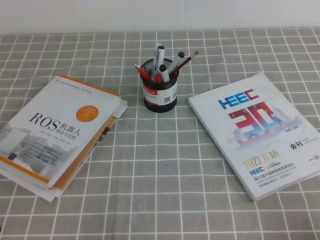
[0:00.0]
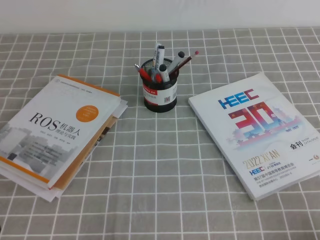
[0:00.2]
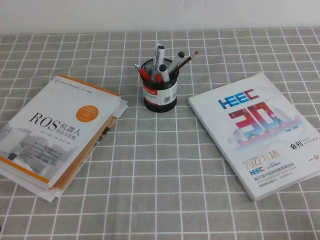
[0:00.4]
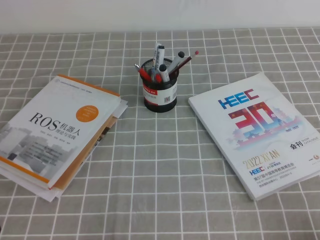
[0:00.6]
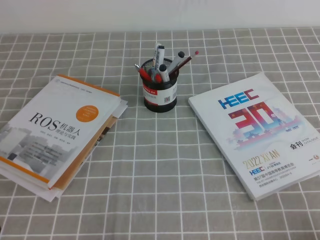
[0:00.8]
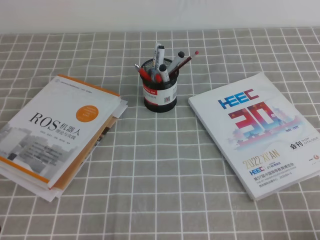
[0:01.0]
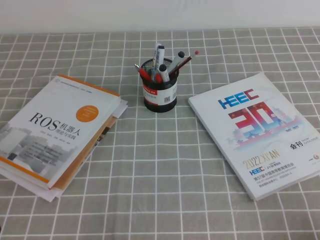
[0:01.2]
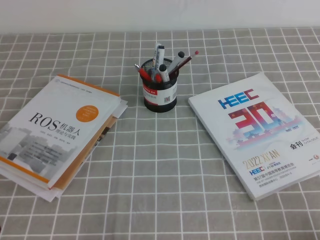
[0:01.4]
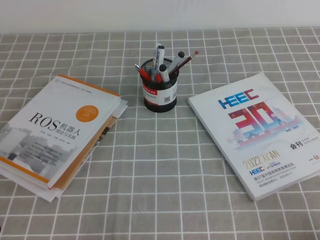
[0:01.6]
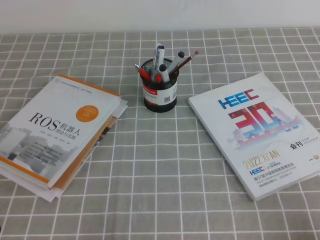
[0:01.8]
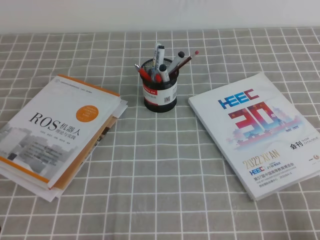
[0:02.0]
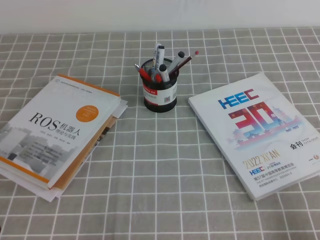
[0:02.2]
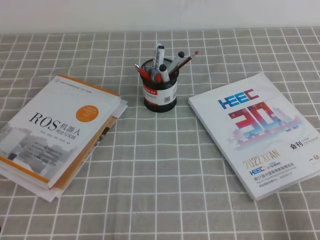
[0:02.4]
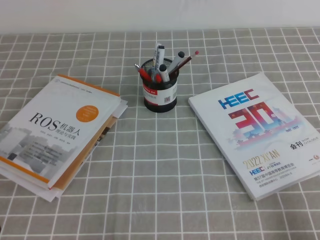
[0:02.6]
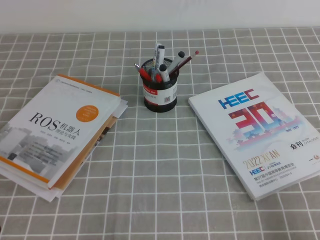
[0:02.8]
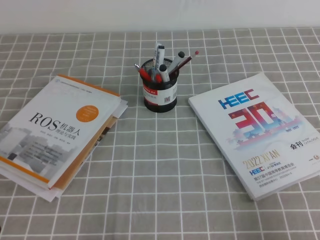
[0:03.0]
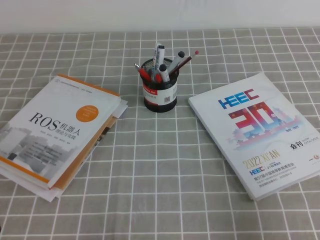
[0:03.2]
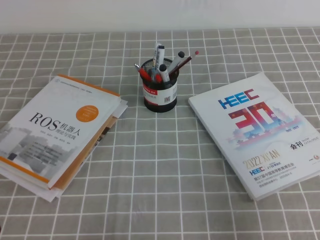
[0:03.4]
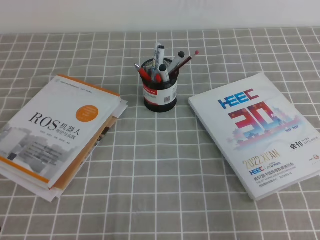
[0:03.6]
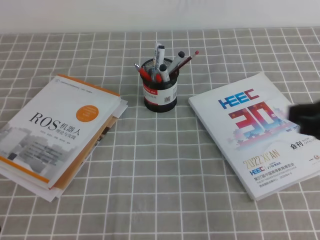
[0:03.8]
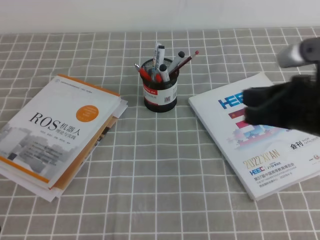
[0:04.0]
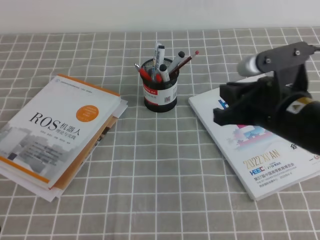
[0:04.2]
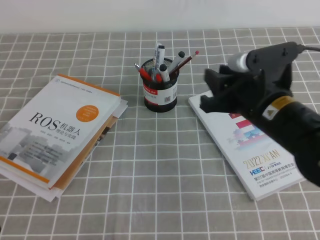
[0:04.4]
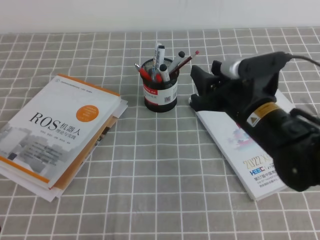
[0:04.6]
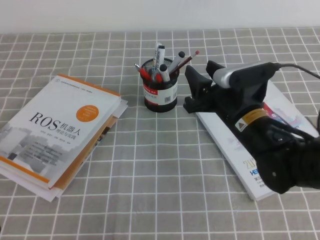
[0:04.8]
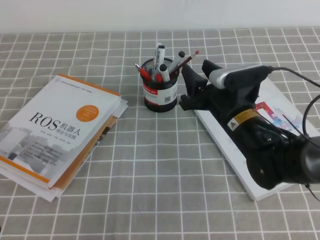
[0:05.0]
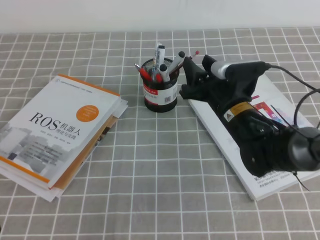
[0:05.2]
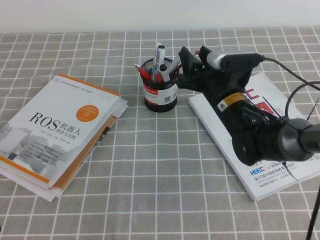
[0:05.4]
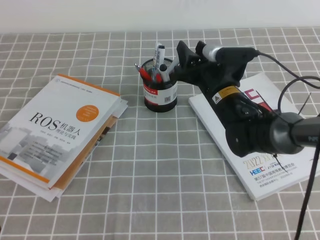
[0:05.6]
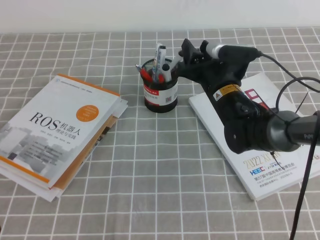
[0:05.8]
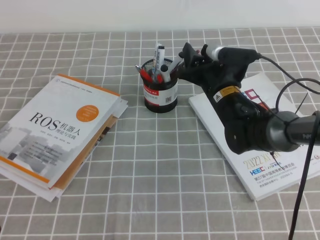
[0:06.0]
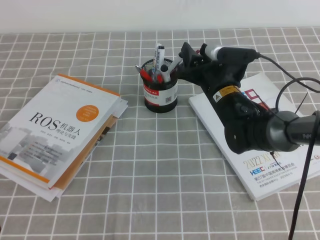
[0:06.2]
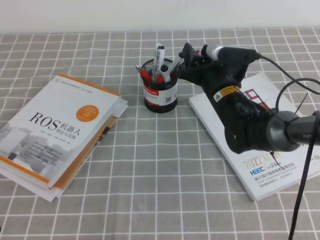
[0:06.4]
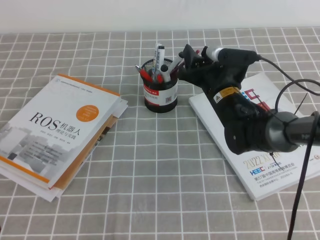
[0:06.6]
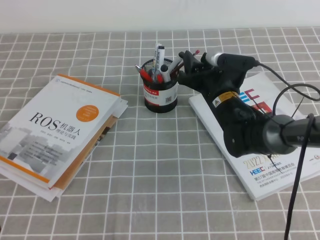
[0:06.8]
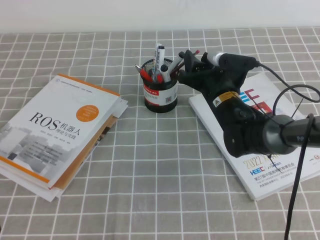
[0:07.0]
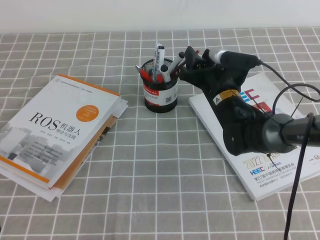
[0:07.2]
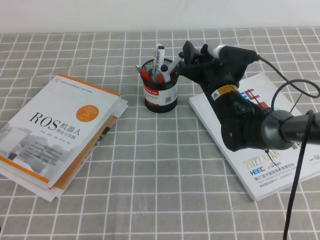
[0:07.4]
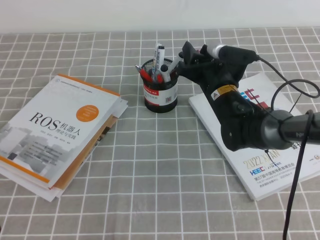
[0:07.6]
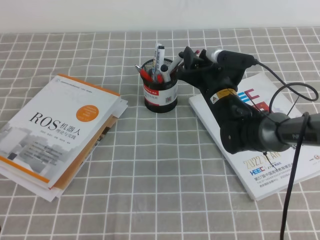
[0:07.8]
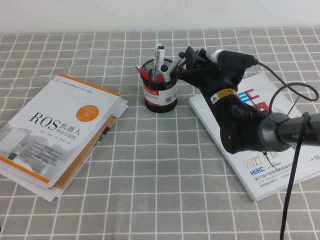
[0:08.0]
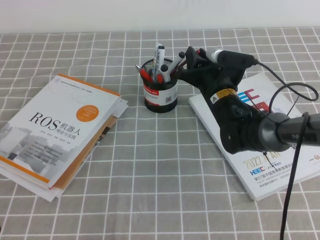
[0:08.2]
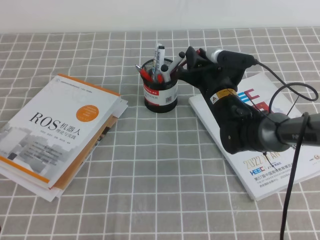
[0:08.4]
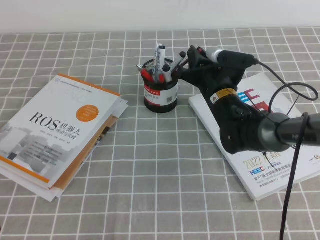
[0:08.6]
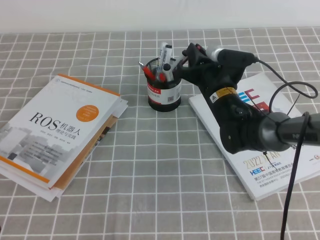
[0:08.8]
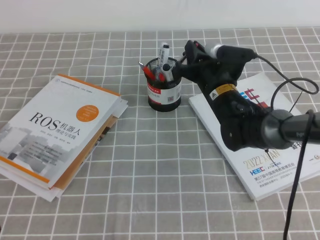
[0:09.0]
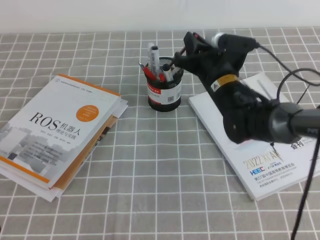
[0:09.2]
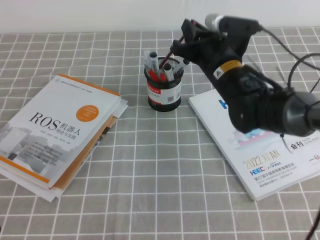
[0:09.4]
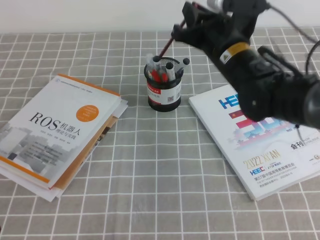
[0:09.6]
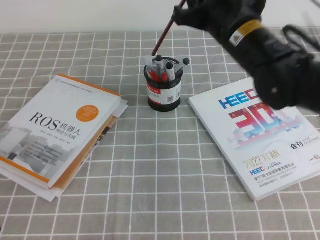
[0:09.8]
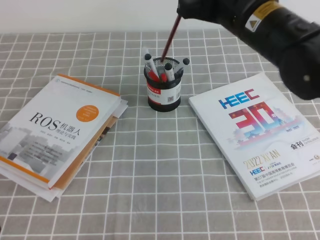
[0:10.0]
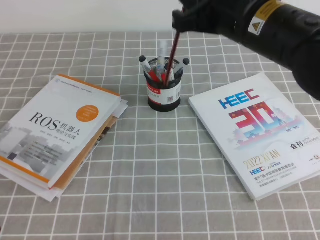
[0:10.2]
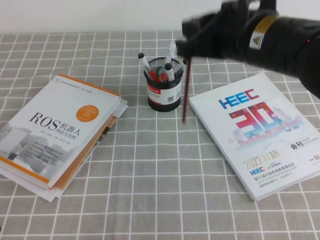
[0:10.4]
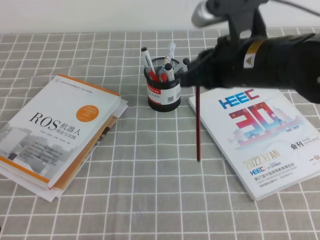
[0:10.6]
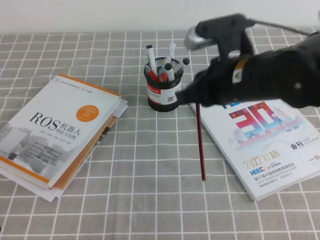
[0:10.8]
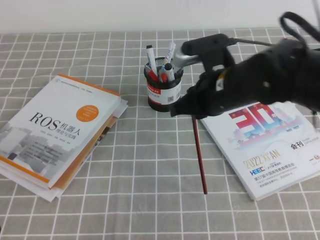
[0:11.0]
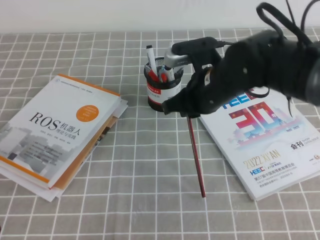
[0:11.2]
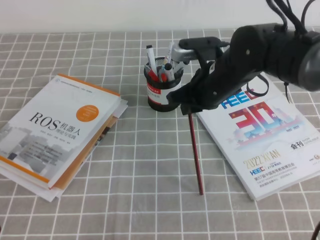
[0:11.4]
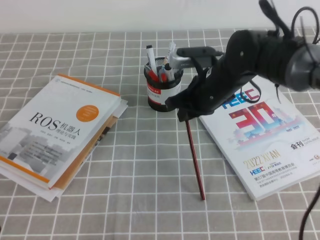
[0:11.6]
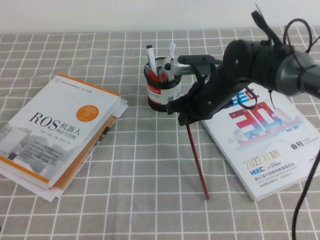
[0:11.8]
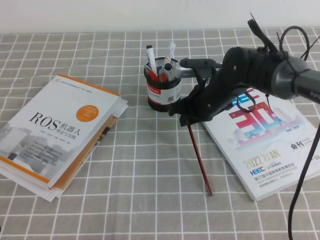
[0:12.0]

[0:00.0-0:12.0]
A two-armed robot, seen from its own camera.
0:00.0 to 0:01.6: The two grippers keep their place.
0:01.6 to 0:03.0: The right gripper is displaced upward by roughly 10 cm.
0:03.0 to 0:04.4: The right gripper goes about 25 cm forward and to the left, and opens its fingers.
0:04.4 to 0:06.0: The right gripper is displaced forward, downward and to the left by approximately 15 cm, and opens its fingers.
0:06.0 to 0:07.6: The grippers make only small movements.
0:07.6 to 0:09.0: The right gripper closes its fingers.
0:09.0 to 0:10.4: The right gripper moves upward and backward, roughly 20 cm.
0:10.4 to 0:12.0: The right gripper shifts roughly 20 cm downward and forward.

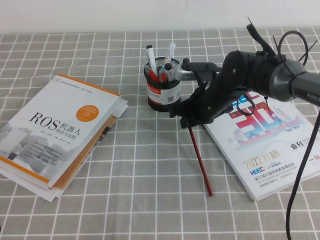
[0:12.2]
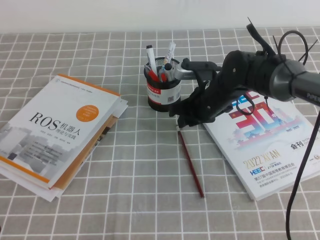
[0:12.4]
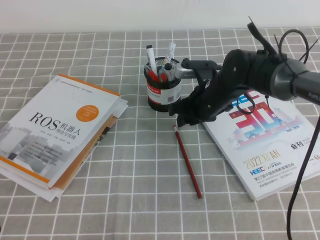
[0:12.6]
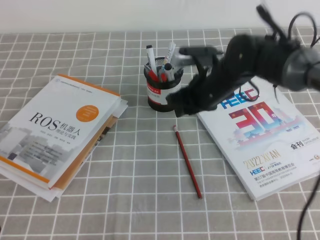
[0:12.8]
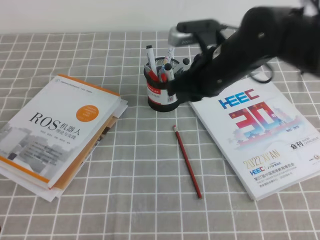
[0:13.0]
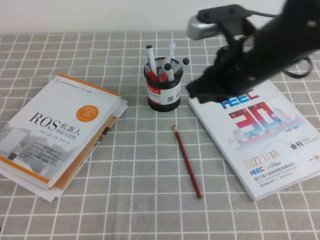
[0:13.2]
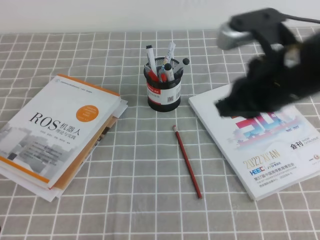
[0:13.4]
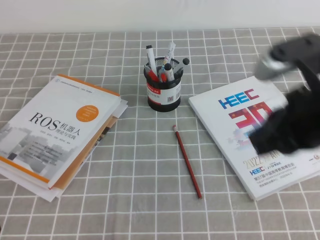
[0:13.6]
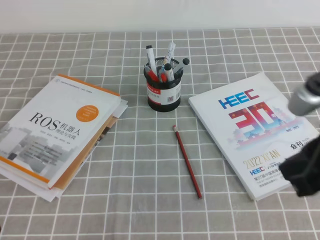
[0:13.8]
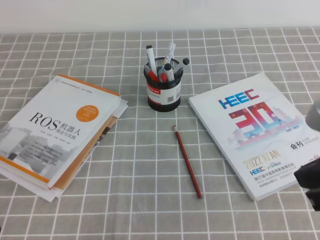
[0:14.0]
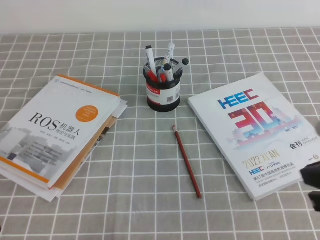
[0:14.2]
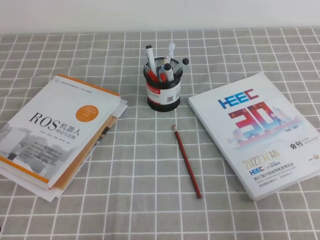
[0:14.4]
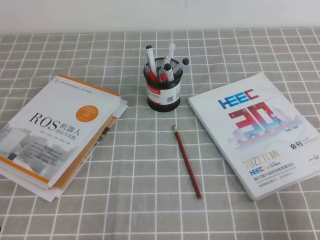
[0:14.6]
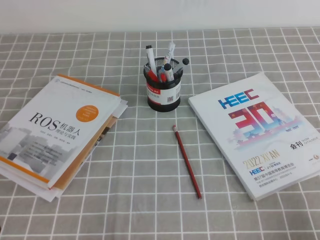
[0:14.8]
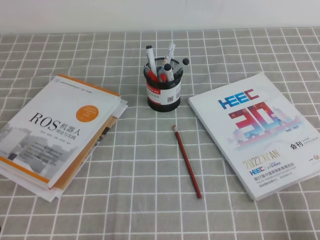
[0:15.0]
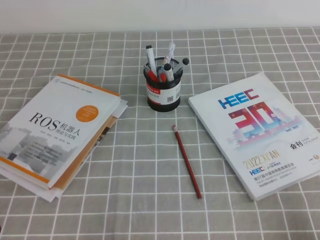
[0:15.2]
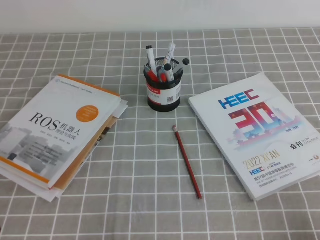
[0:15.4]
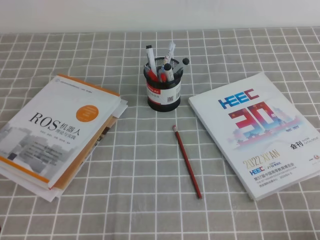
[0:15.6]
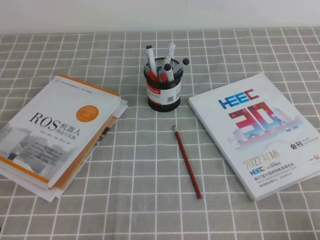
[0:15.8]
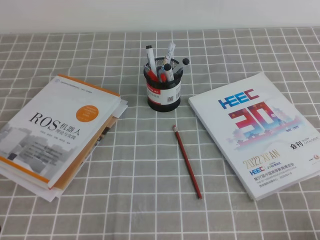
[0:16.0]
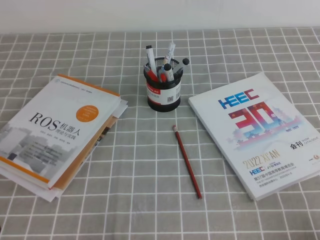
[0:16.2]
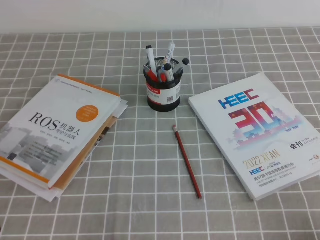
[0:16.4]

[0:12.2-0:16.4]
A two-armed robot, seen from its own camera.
Step, 0:12.2 to 0:16.4: Pick up the pen from the pen holder.
0:12.2 to 0:13.6: The right gripper goes roughly 30 cm backward, upward and to the right, and opens, then closes once more.
0:13.6 to 0:15.0: The right gripper goes some 25 cm downward, backward and to the right.

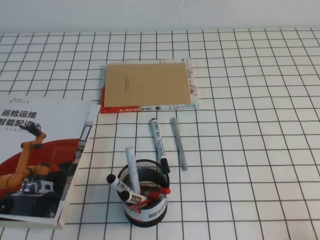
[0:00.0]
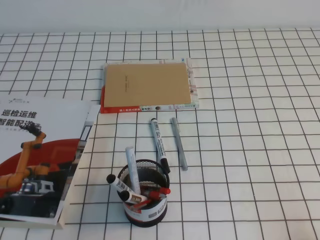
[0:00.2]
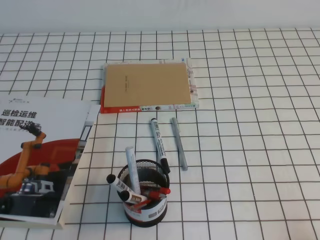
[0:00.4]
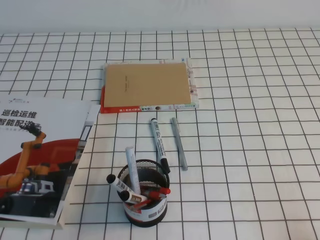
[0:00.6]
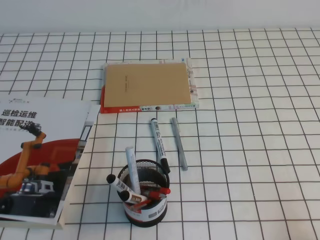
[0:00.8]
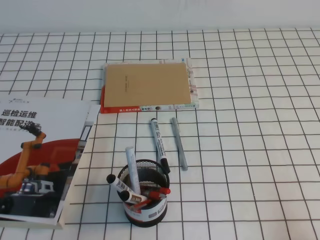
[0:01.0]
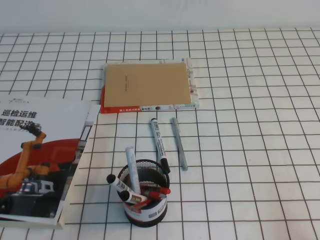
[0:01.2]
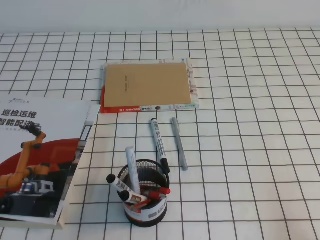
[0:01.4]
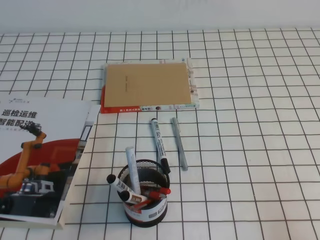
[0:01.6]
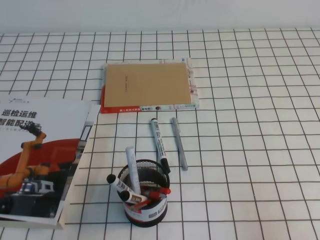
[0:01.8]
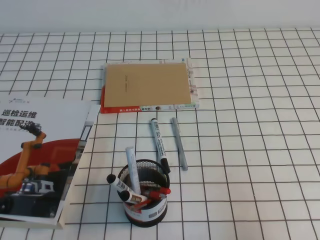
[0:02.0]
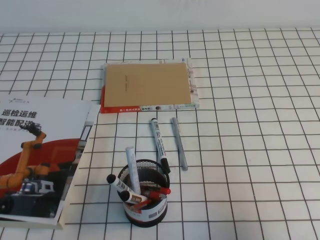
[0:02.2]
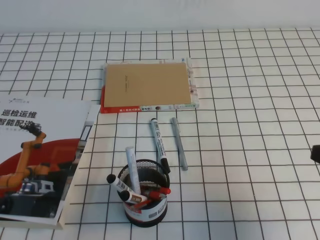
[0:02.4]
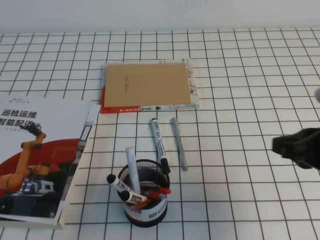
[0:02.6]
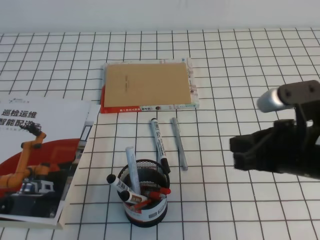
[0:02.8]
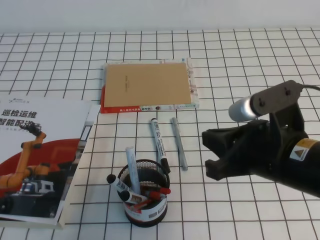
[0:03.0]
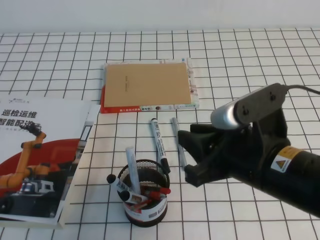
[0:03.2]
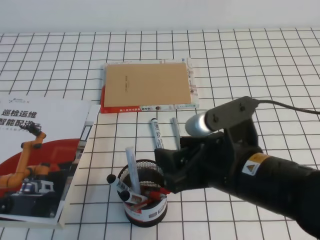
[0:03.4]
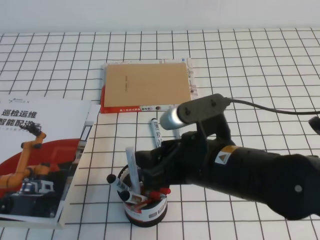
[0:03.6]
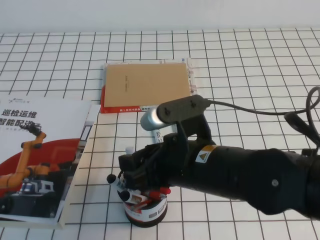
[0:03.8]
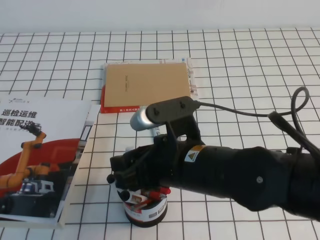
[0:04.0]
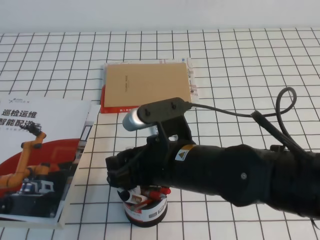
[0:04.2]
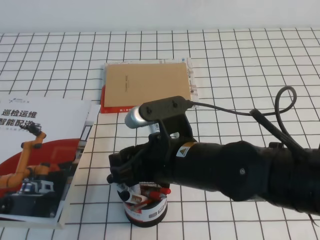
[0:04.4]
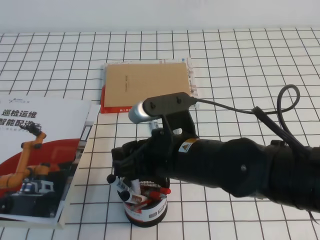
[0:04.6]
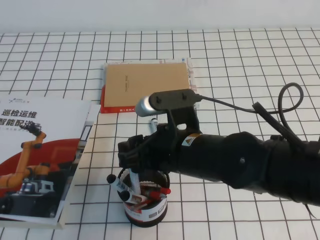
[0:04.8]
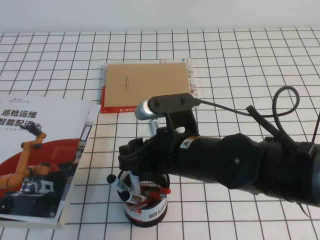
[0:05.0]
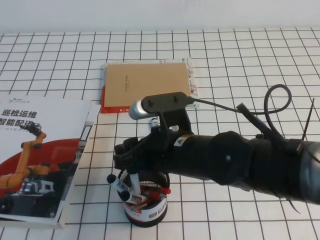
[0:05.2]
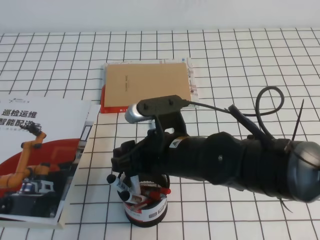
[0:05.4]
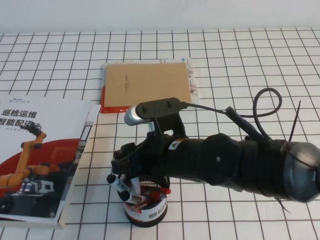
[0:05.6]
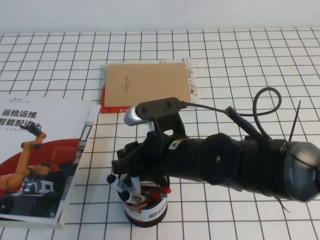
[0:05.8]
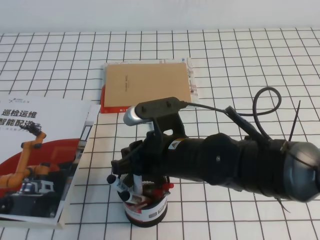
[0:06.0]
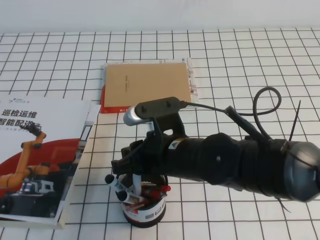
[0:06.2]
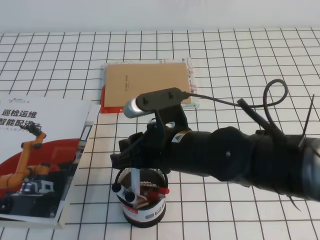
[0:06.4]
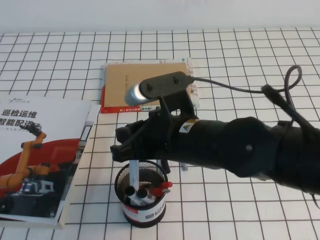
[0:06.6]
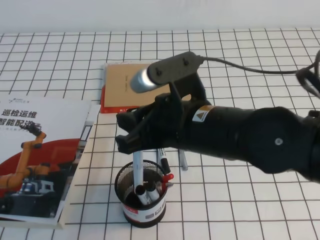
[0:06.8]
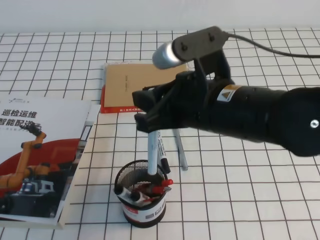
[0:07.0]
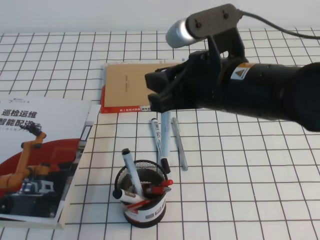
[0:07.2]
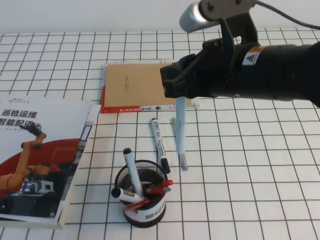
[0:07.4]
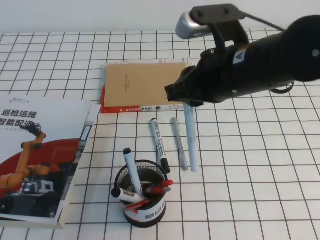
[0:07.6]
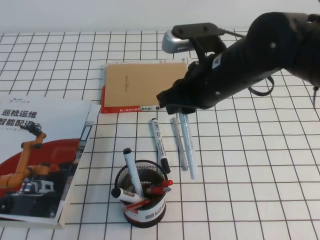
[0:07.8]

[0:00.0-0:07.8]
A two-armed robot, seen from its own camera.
0:01.6 to 0:03.2: The right gripper shifts approximately 25 cm to the left and forward, and opens.
0:03.2 to 0:04.6: The right gripper heads to the left, covering about 10 cm, and opens up.
0:04.6 to 0:06.2: The right gripper closes up.
0:06.2 to 0:07.8: The right gripper moves upward, to the right and forward, some 15 cm.
